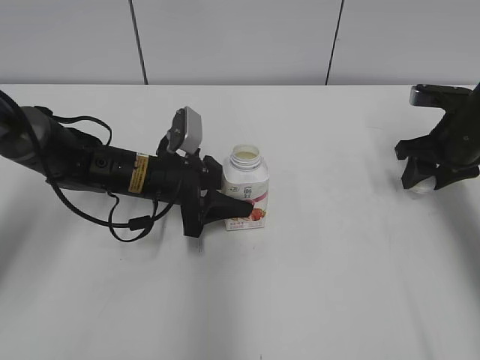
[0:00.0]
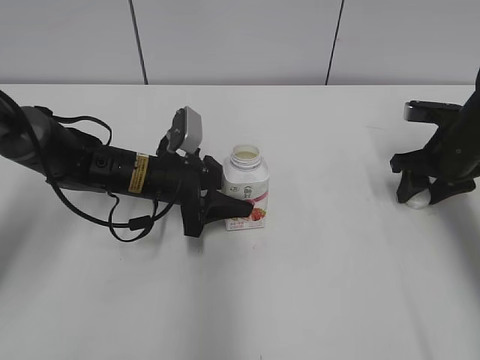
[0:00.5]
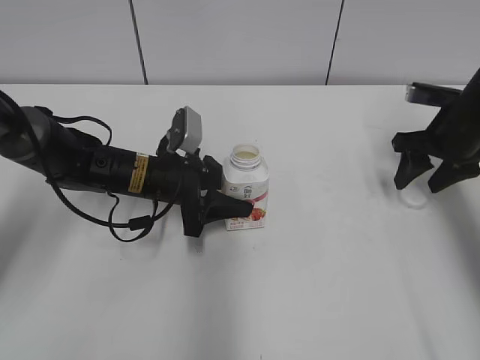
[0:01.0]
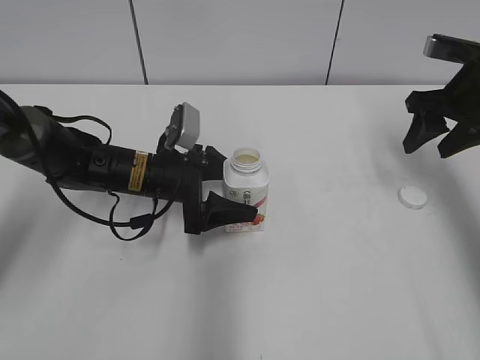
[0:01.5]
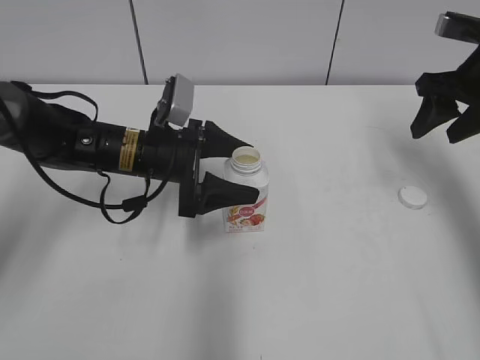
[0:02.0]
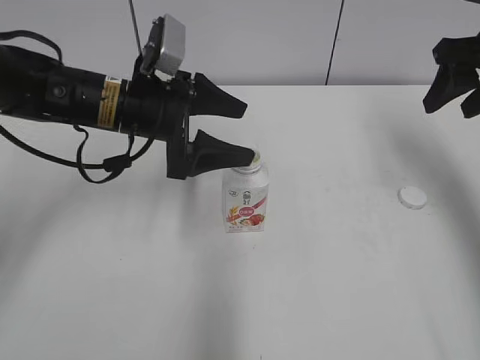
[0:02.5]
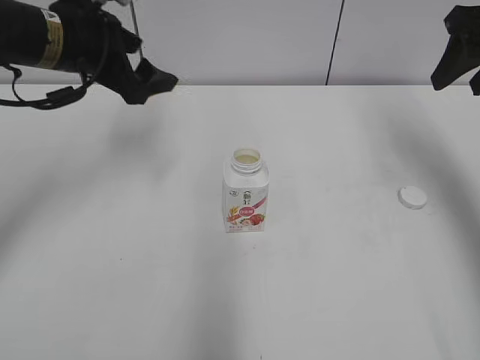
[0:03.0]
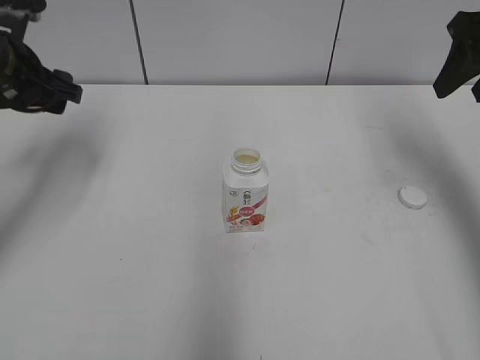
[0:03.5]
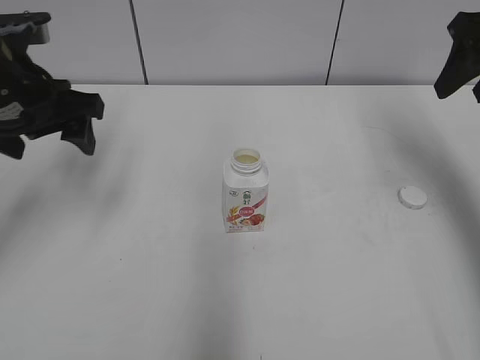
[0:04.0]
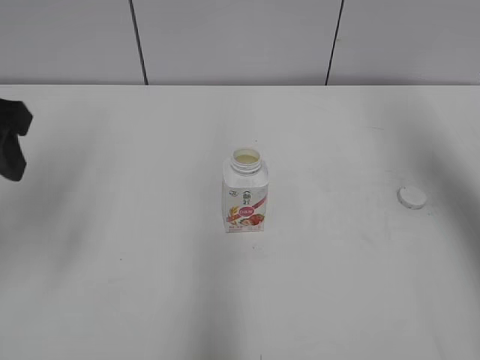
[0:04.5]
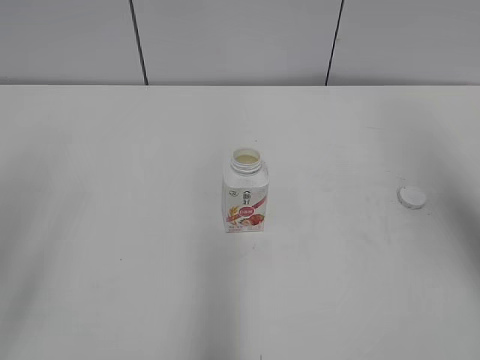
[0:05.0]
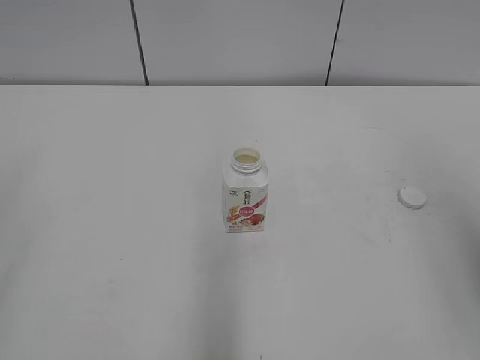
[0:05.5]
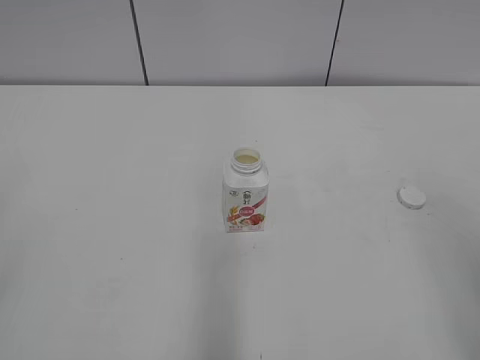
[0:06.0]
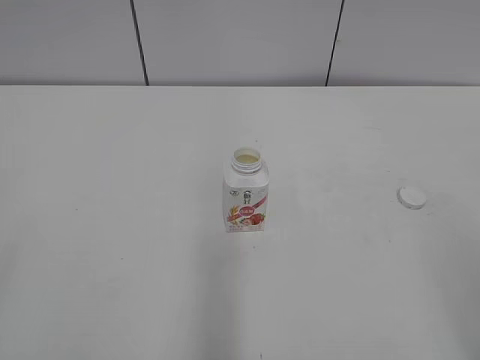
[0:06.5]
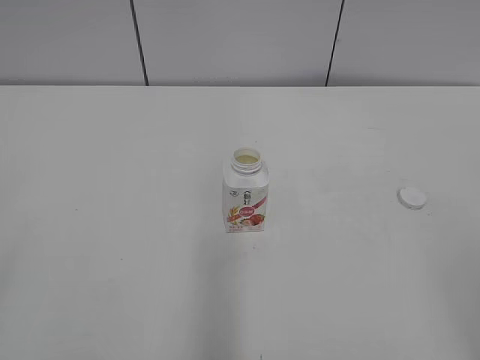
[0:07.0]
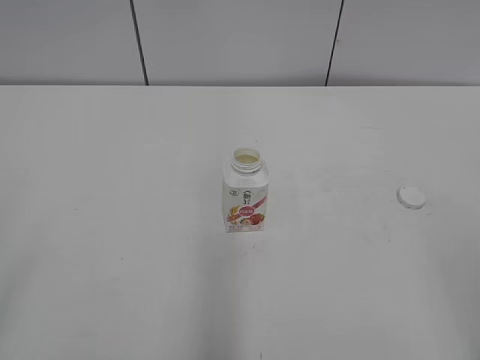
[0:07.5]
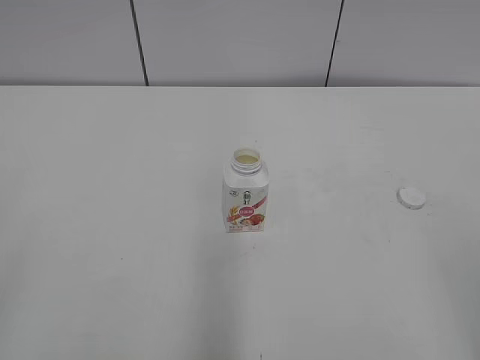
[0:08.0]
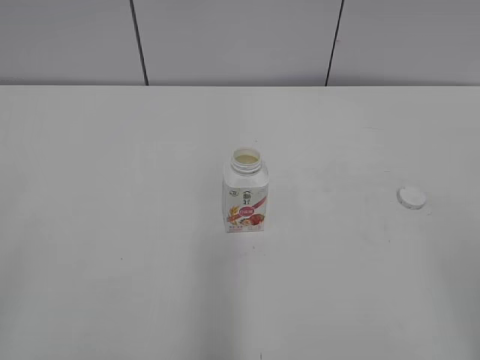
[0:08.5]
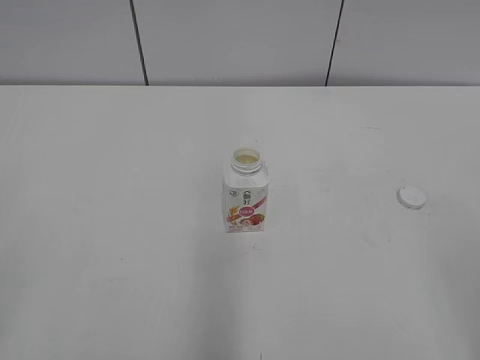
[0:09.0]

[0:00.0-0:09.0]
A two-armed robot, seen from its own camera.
0:00.0 to 0:02.0: The right gripper is displaced upward by about 10 cm, and opens up. Meanwhile the left gripper opens.
0:02.0 to 0:04.5: The left gripper shifts about 25 cm upward, to the left and backward, while the right gripper goes about 15 cm upward and backward.
0:04.5 to 0:07.0: Both grippers travel together backward, some 30 cm.

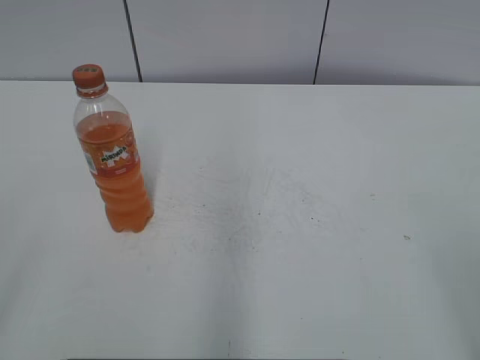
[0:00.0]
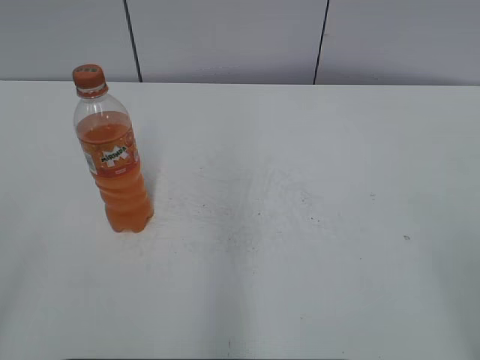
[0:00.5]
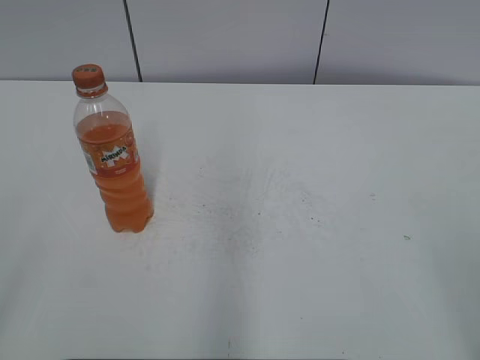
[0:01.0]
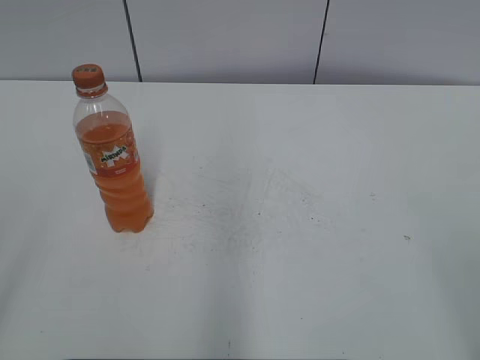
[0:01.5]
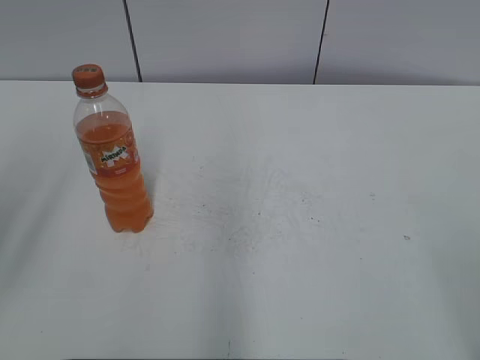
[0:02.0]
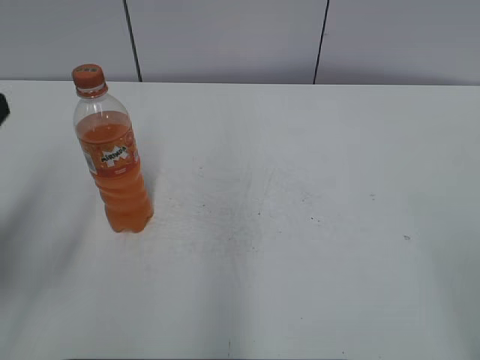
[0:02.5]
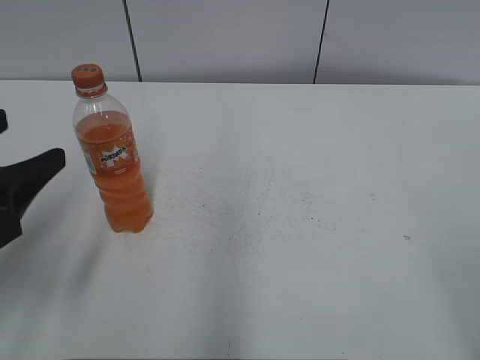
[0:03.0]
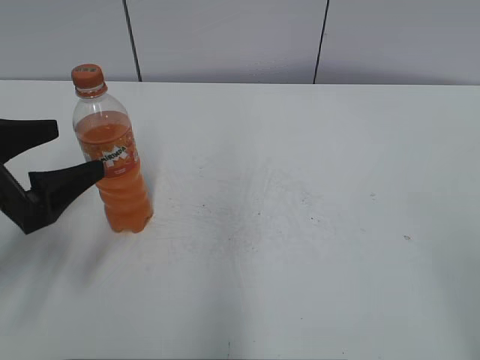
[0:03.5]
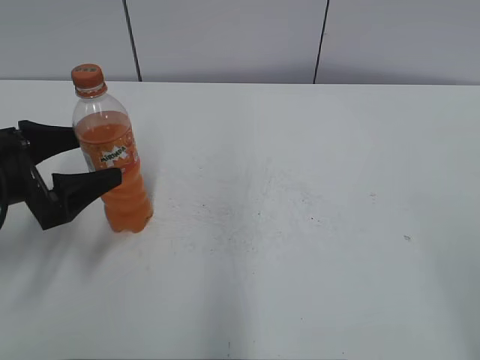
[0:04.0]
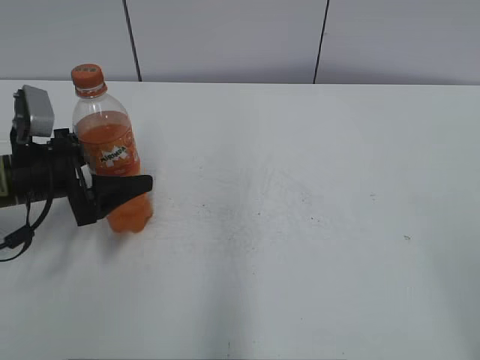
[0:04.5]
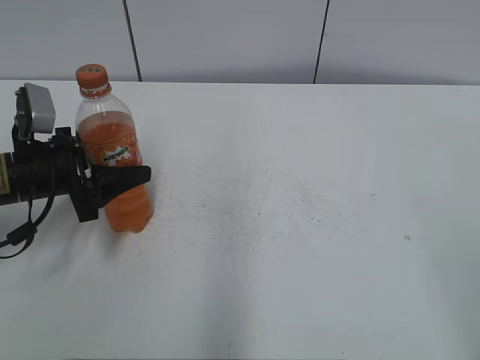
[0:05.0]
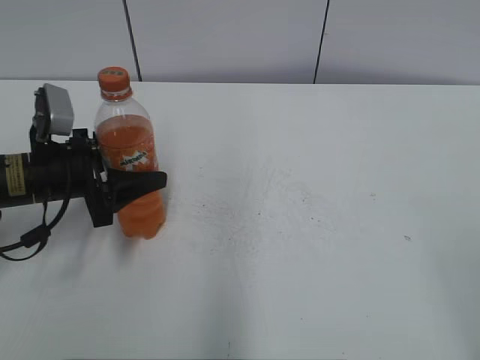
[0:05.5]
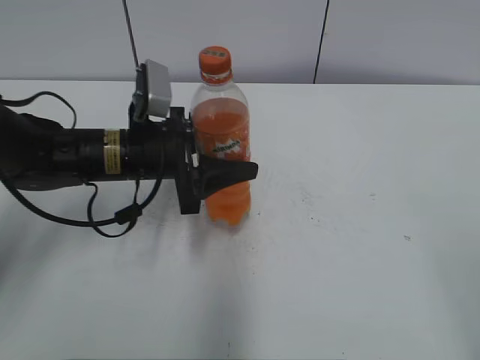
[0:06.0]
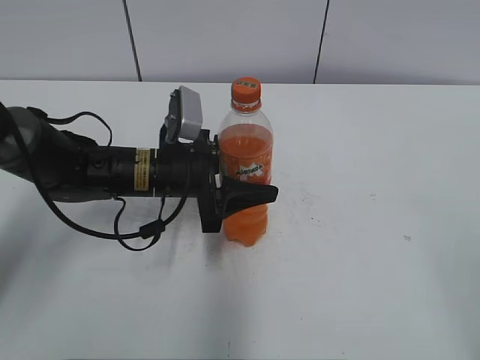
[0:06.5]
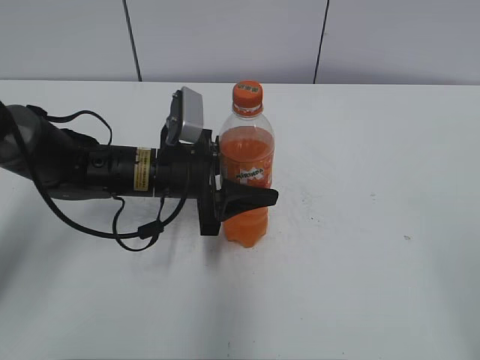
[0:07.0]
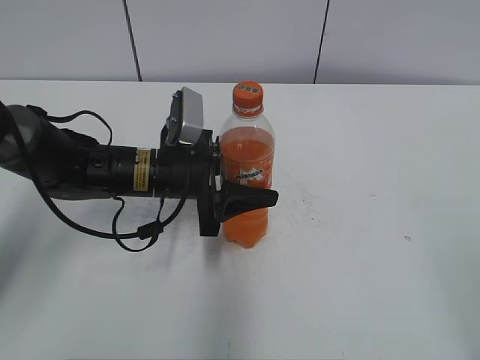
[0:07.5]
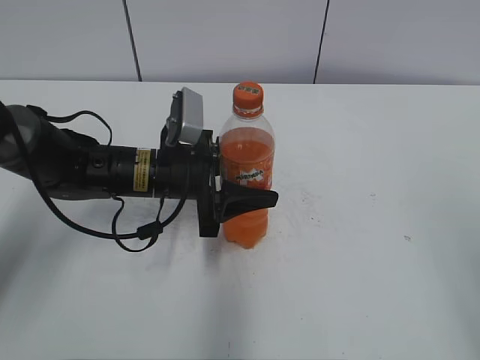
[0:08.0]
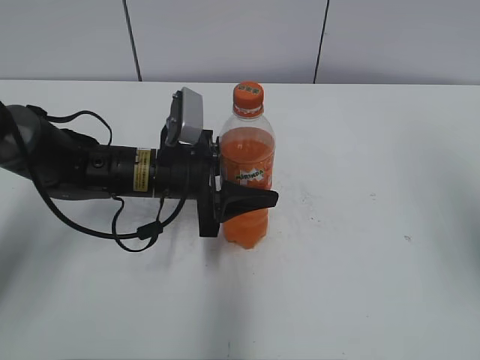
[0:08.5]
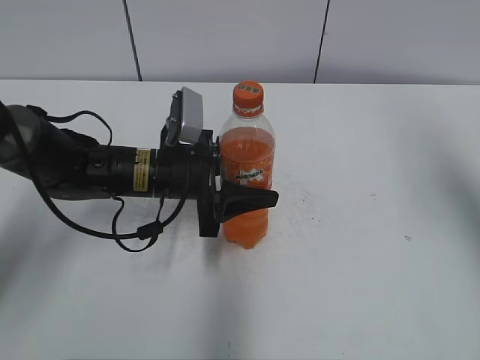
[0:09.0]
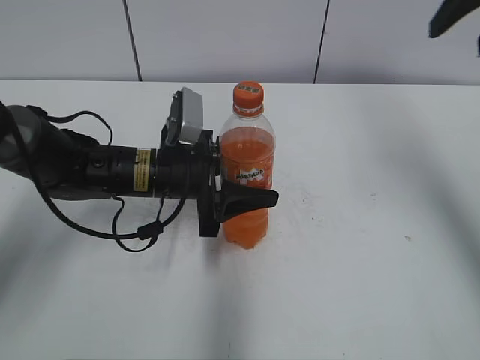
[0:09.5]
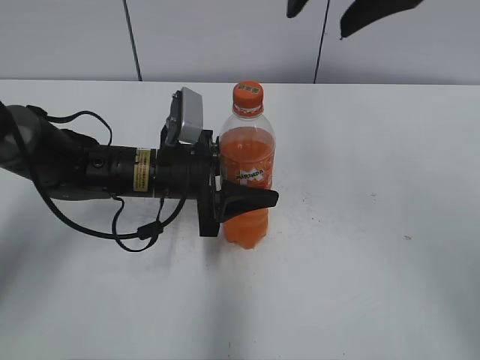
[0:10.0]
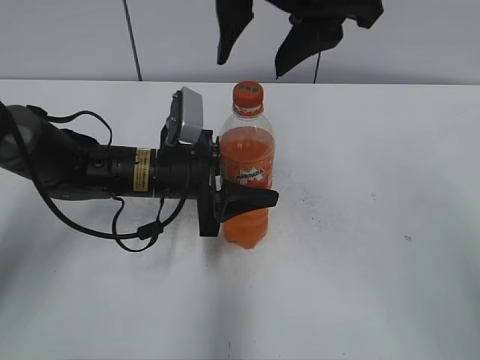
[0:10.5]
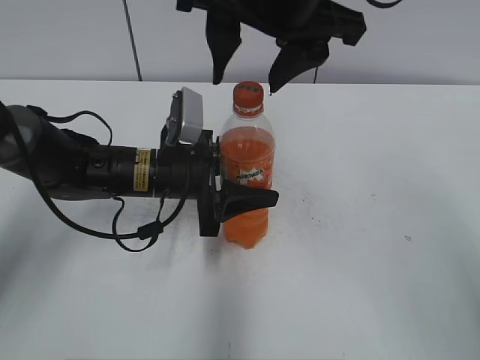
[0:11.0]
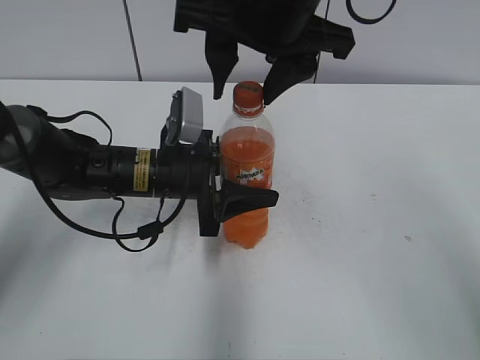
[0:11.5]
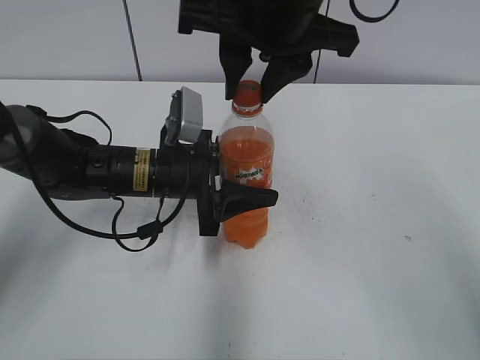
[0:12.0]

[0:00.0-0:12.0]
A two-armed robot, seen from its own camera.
Step, 0:00.0 to 0:04.5: Grab the Mirinda with the left hand.
Step, 0:05.0 to 0:06.5: Move the Mirinda from left to right.
0:02.0 to 0:04.0: The left gripper travels downward and forward by approximately 25 cm, and opens up.
0:04.0 to 0:06.0: The left gripper is displaced to the right and forward by about 15 cm, and closes its fingers.
0:06.0 to 0:08.0: The left gripper moves some 5 cm.
0:08.0 to 0:10.0: The right gripper goes roughly 30 cm forward and to the left.
0:10.0 to 0:12.0: The right gripper heads to the left and downward, covering about 10 cm, and closes up.

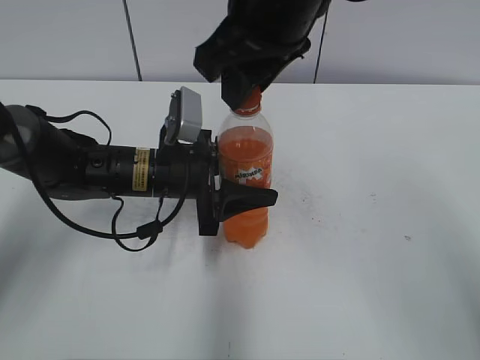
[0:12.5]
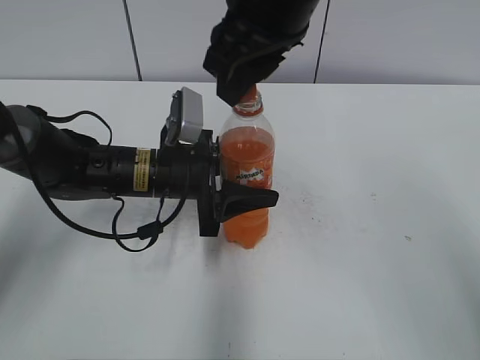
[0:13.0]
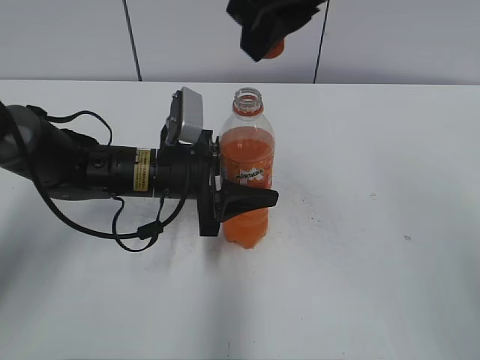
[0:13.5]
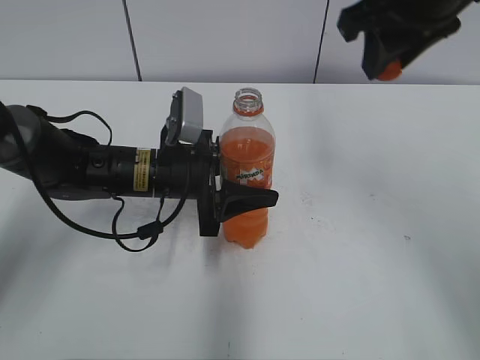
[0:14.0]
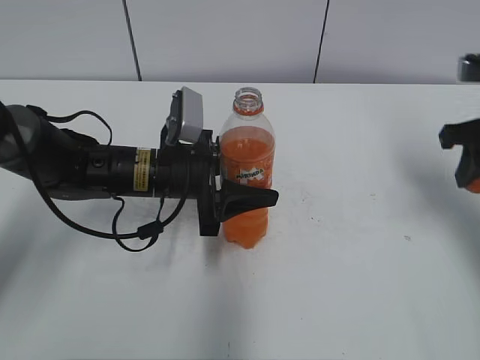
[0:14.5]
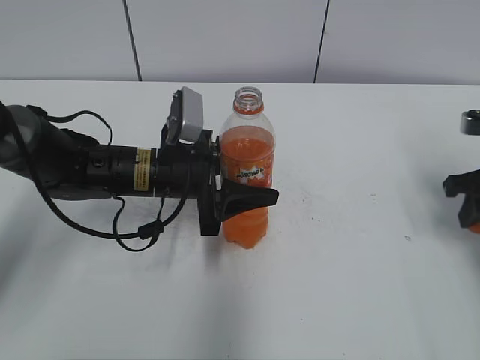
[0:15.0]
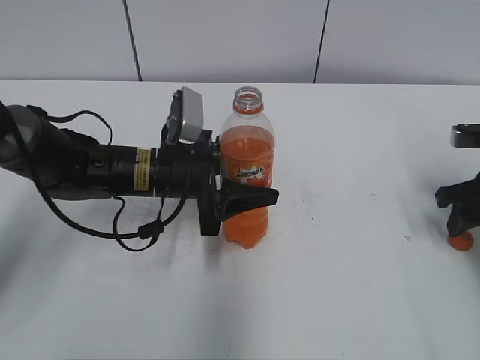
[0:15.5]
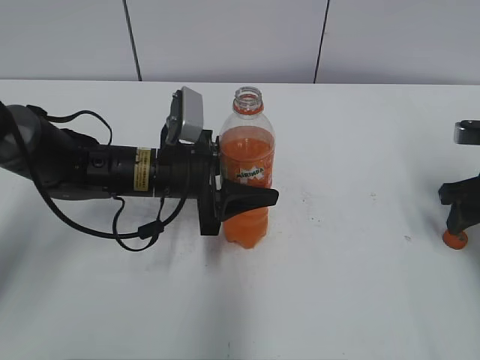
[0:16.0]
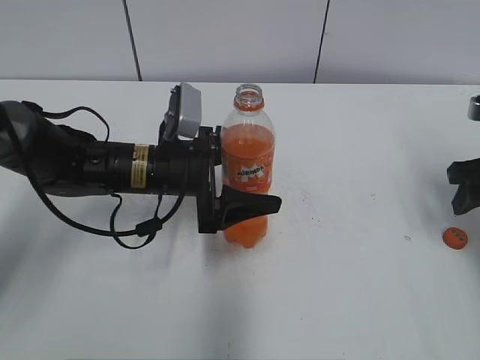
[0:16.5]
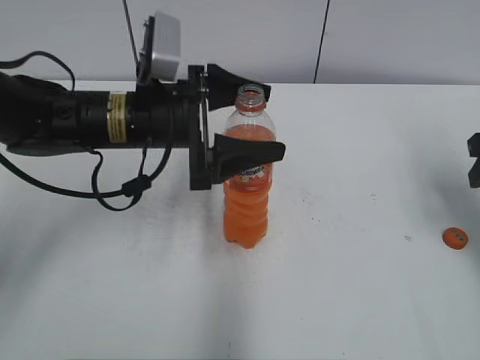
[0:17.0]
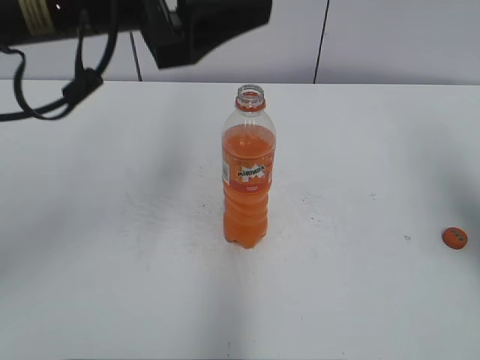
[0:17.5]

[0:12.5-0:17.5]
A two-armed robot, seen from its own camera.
Step, 0:13.5 to 0:15.5: Place the bottle cap on the right.
0:12.5 to 0:15.0: The right gripper travels to the right and downward by roughly 35 cm.
0:15.0 to 0:17.5: The right gripper goes approximately 15 cm upward and backward, and opens up. The left gripper heads upward, covering approximately 20 cm, and opens up.
